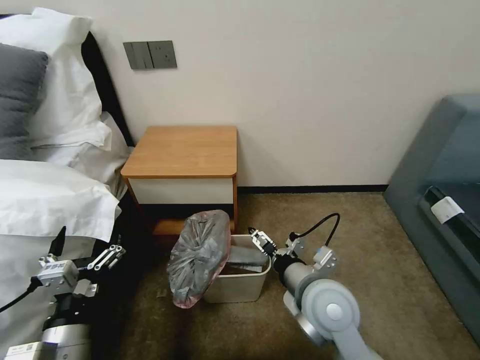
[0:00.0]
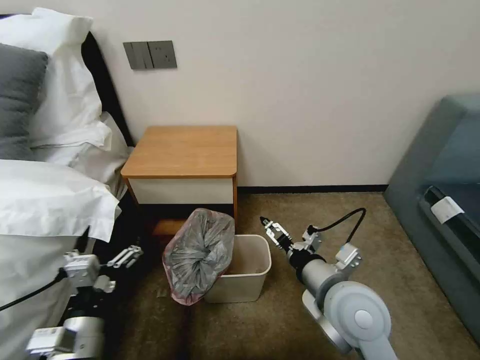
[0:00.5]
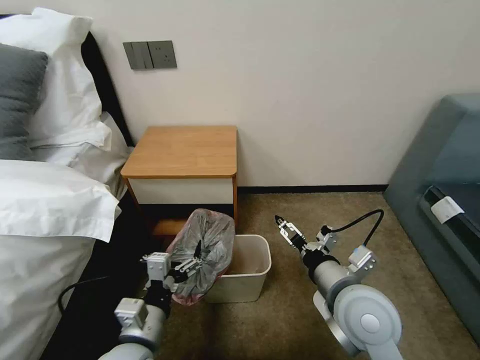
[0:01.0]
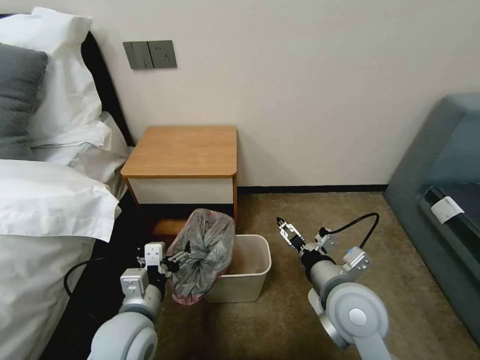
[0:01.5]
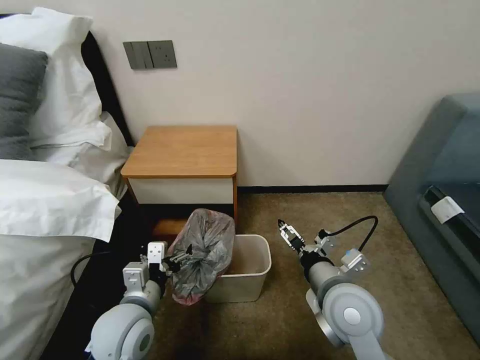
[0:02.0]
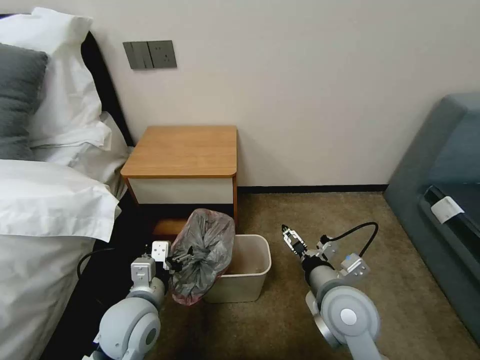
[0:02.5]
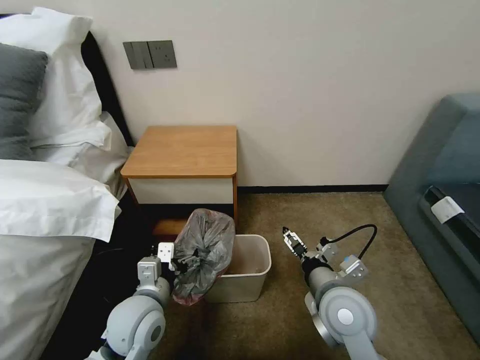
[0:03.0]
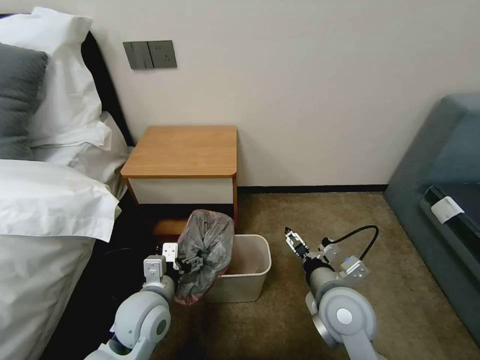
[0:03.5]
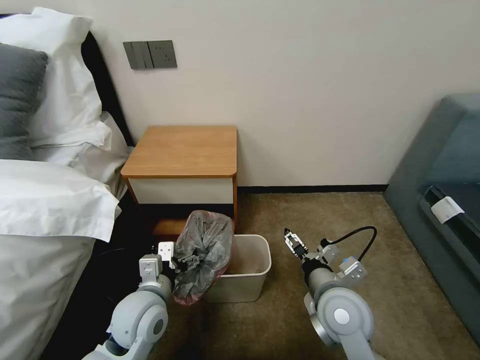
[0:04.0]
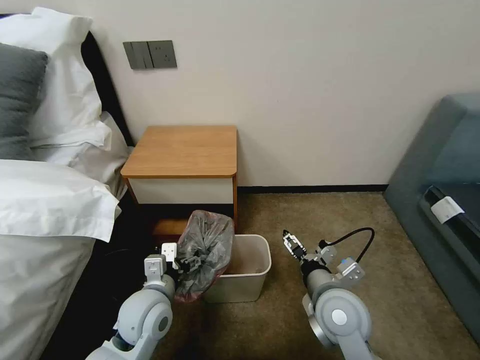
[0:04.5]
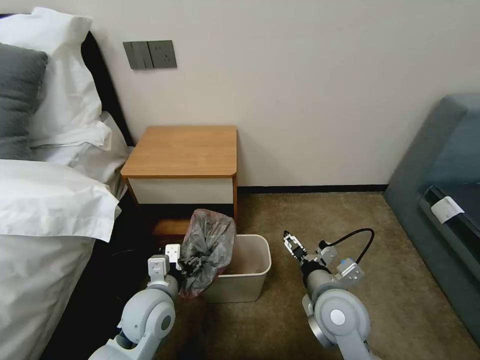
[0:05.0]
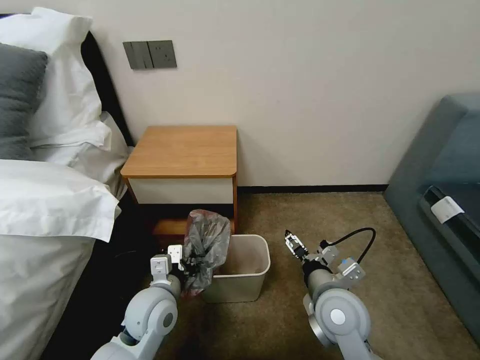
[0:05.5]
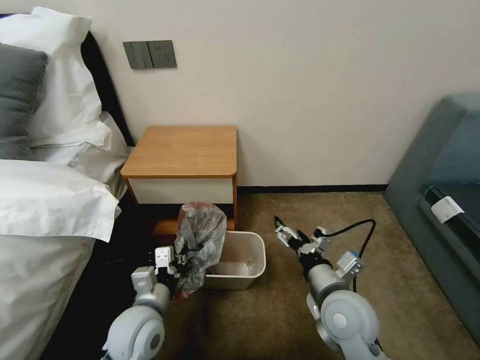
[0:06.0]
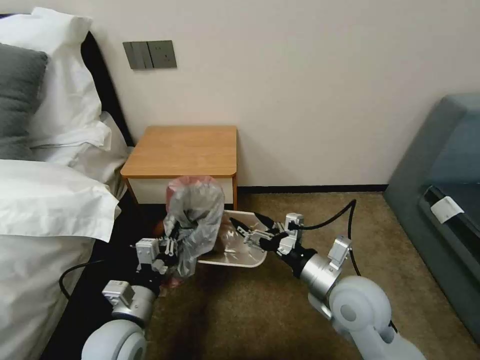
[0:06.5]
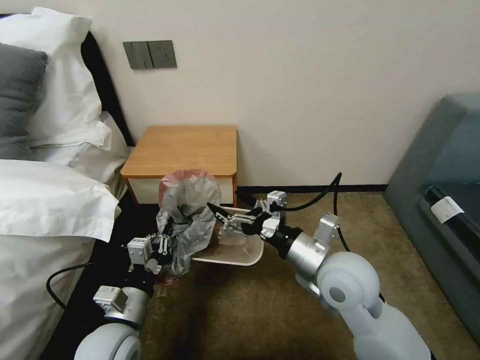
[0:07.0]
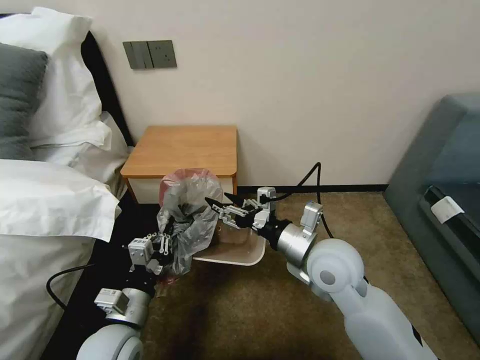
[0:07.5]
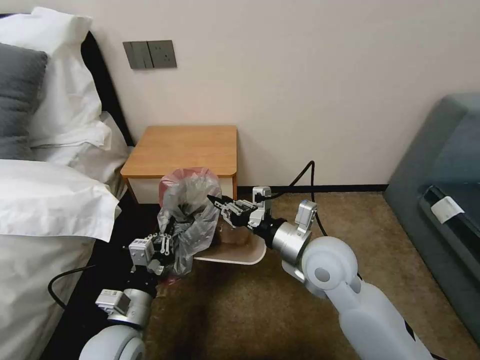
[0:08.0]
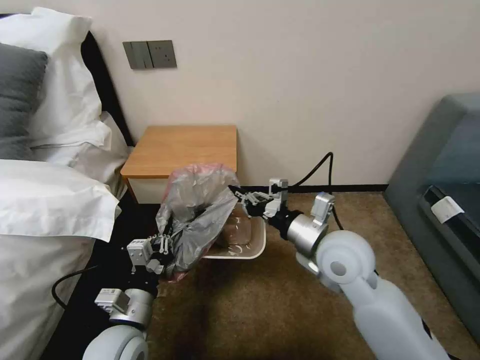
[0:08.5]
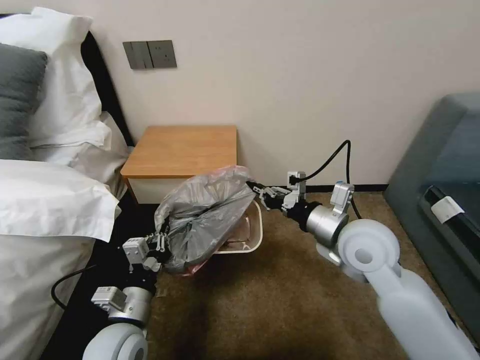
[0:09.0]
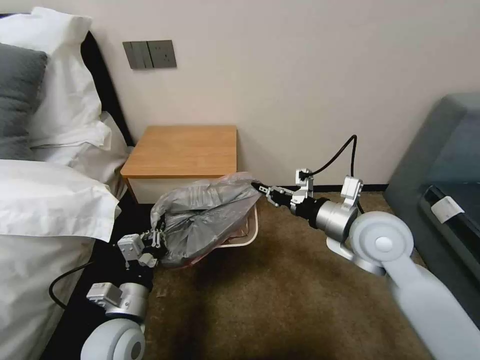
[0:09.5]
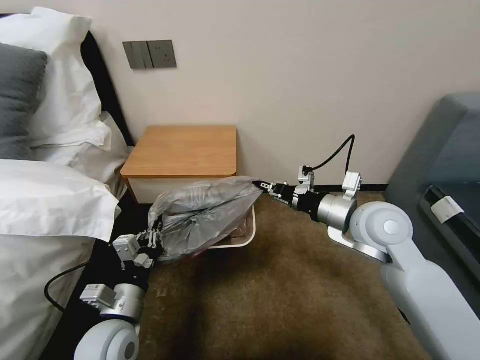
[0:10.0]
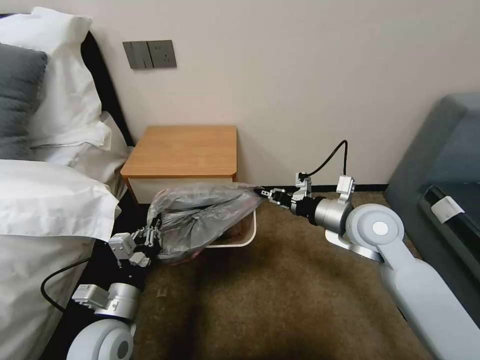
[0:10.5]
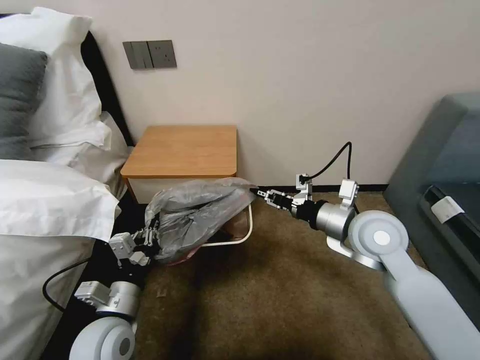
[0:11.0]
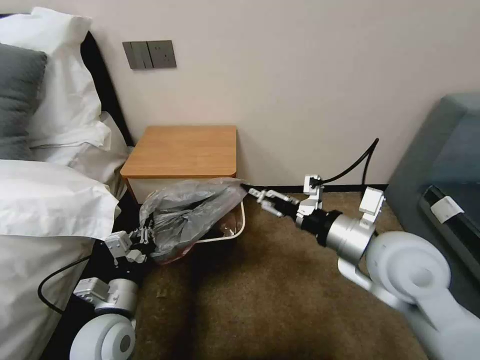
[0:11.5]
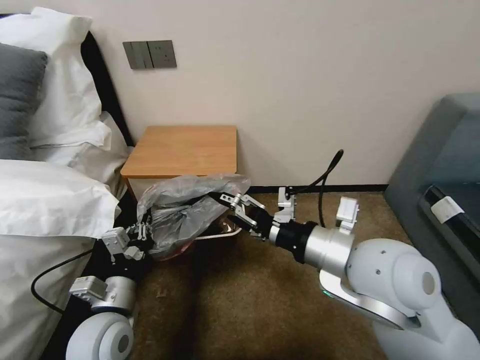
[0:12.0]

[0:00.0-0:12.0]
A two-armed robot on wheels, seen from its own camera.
Task of the whole recording: Pick up the garbage bag from the table and place it over the trash can.
0:00.0 to 0:02.0: The left gripper travels forward and to the right by roughly 10 cm.
0:02.0 to 0:04.0: The grippers stay close to where they were, moving slightly.
0:04.0 to 0:06.0: The left gripper closes.
0:06.0 to 0:08.0: The right gripper moves upward and forward, approximately 10 cm, and closes.
0:08.0 to 0:10.0: The right gripper shifts some 10 cm to the right.
0:10.0 to 0:12.0: The right gripper shifts roughly 10 cm backward and to the left, and opens its fingers.

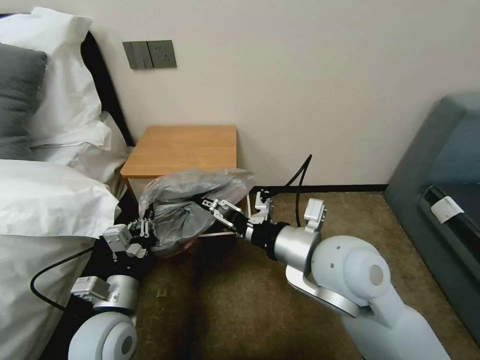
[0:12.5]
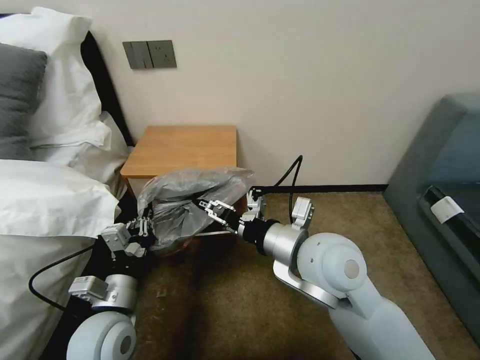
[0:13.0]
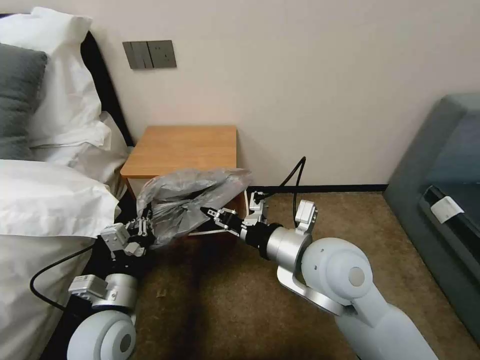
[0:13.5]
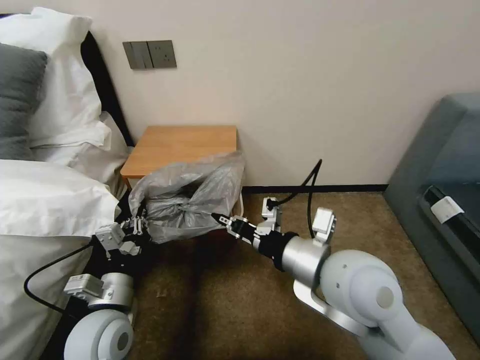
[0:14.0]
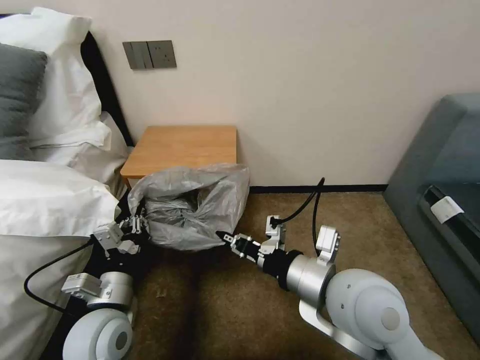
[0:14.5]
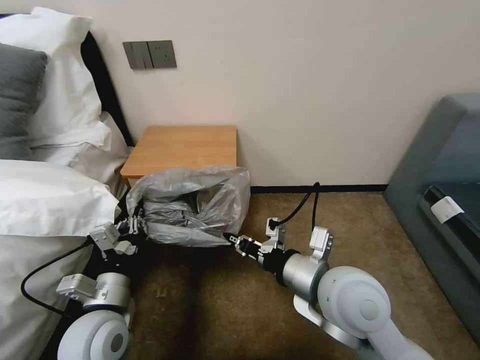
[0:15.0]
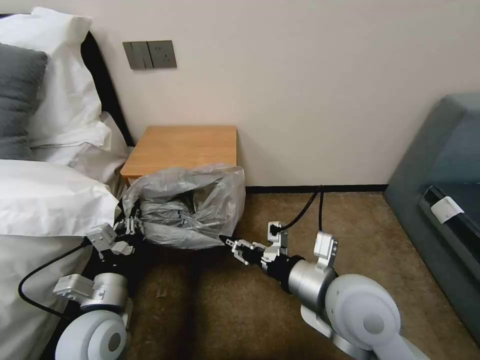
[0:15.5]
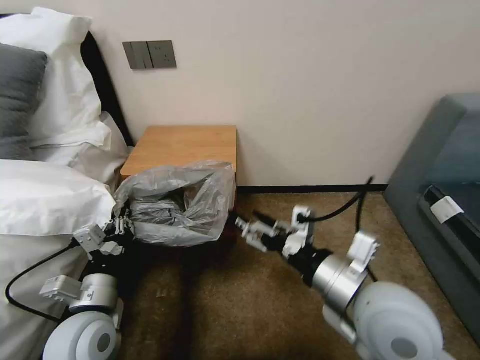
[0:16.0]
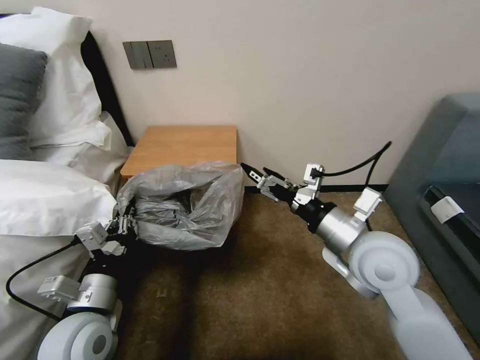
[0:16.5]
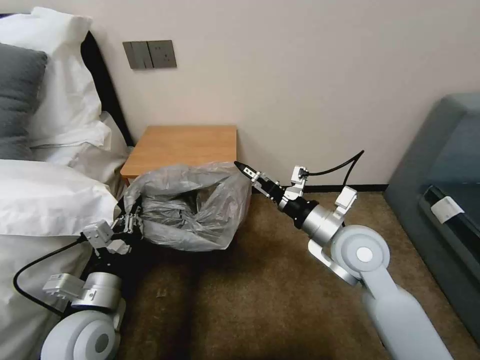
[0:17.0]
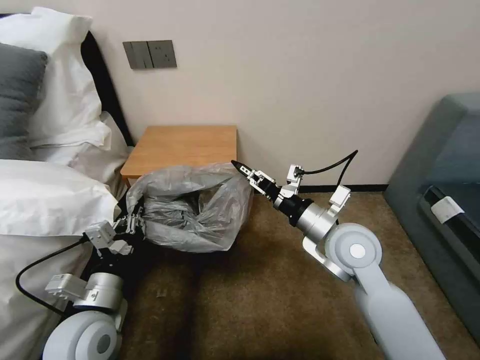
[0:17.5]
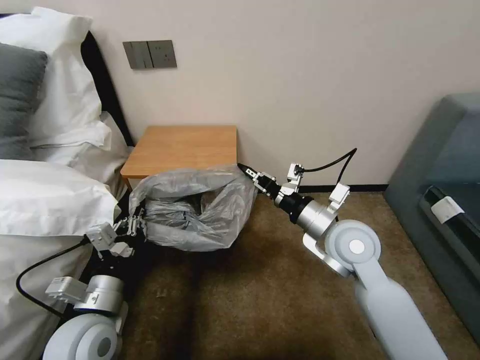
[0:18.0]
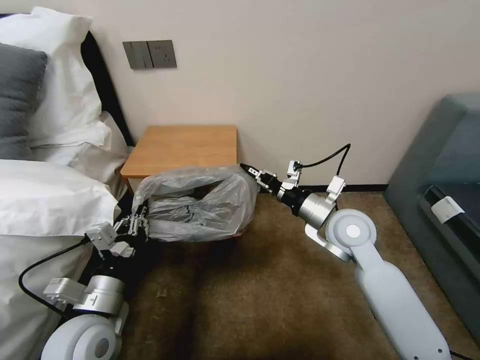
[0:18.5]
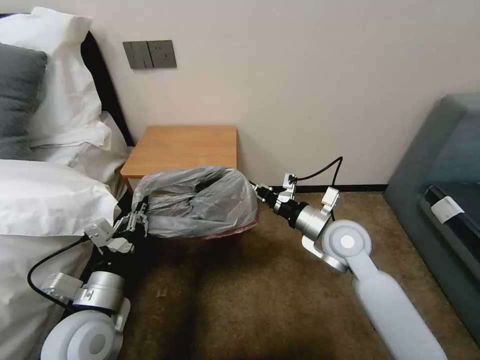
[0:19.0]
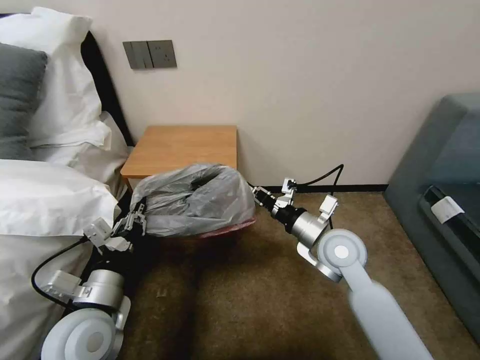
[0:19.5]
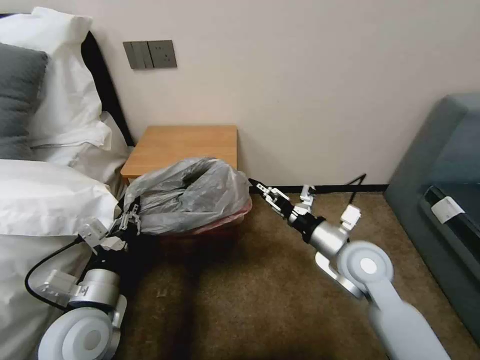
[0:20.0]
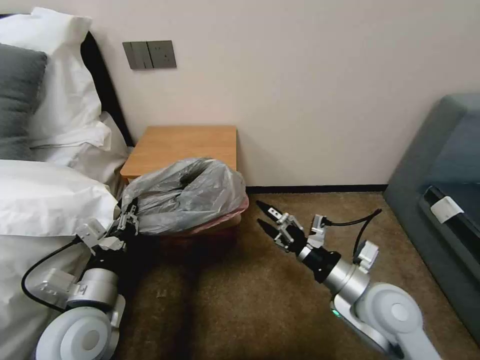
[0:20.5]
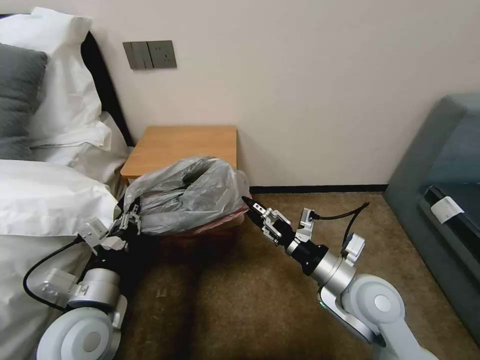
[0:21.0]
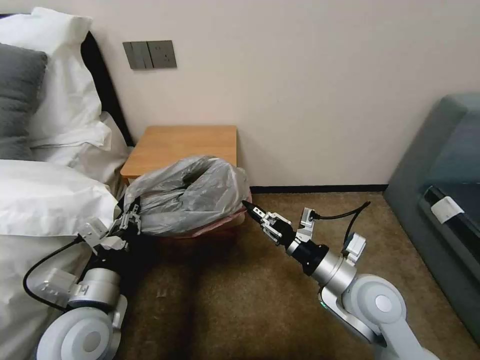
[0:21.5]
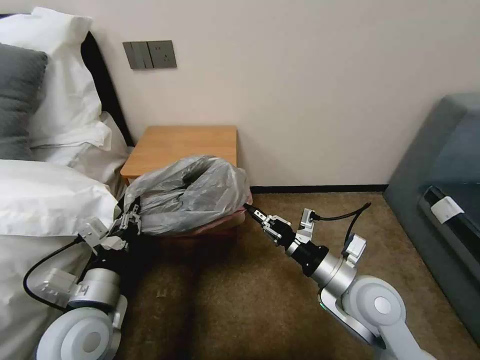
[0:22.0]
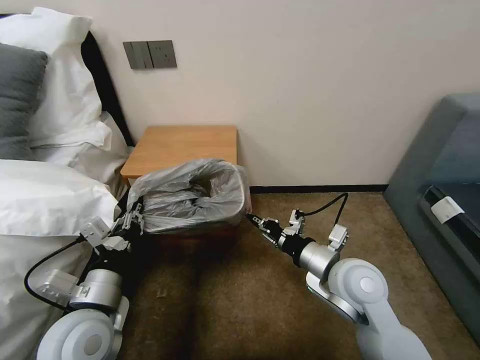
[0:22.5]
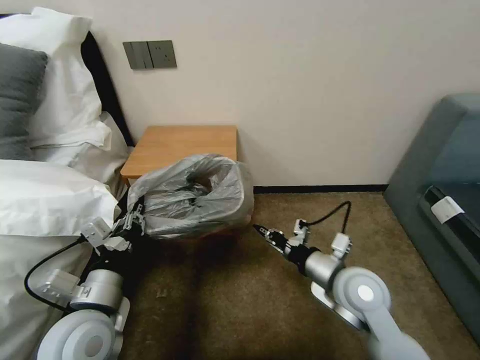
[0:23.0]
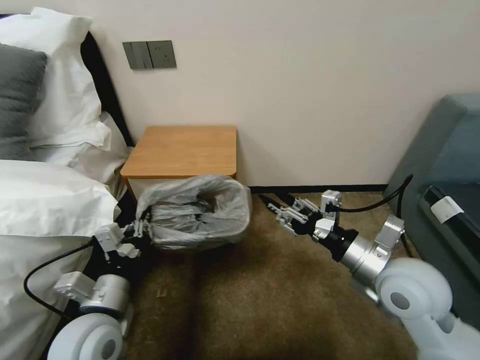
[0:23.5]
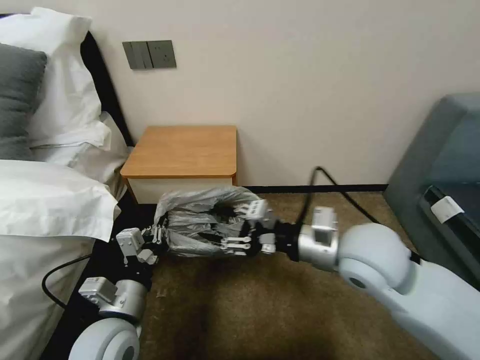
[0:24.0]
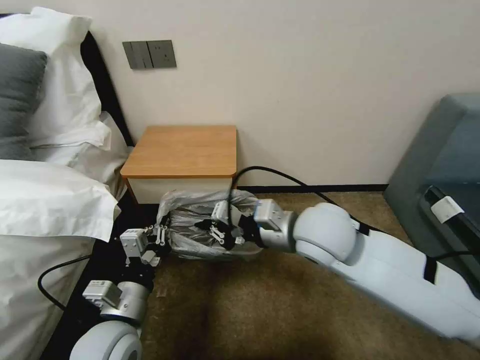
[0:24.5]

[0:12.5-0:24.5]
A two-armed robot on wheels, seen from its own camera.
Task of the whole recording: Pick up the garbage bag from the table and place it over the trash can.
0:12.5 to 0:14.5: The right gripper ends up about 5 cm from where it was, and closes its fingers.
0:14.5 to 0:16.5: The right gripper goes about 10 cm forward and to the right, and opens its fingers.
0:16.5 to 0:18.5: The right gripper is displaced forward by approximately 10 cm, and closes.
0:18.5 to 0:20.5: The right gripper shifts roughly 15 cm backward, and opens up.
0:20.5 to 0:22.5: The right gripper moves approximately 5 cm, and closes up.
0:22.5 to 0:24.5: The right gripper shifts some 15 cm upward and to the left, and opens and closes again.

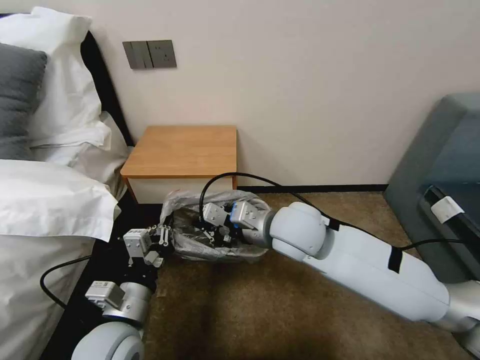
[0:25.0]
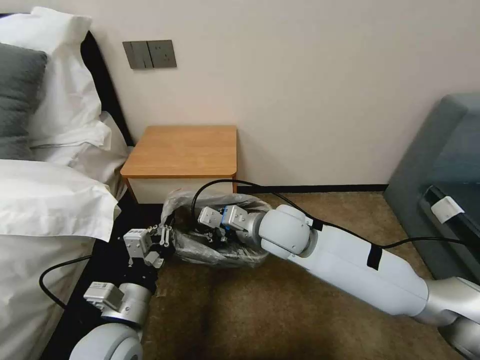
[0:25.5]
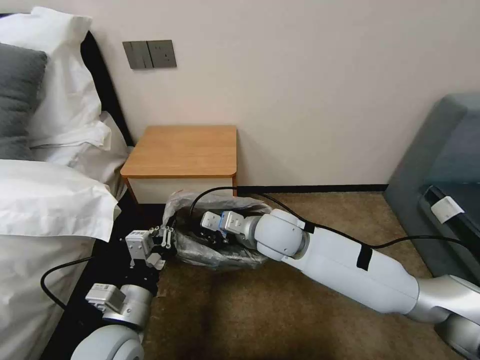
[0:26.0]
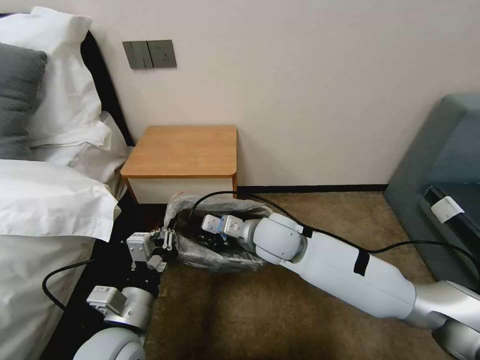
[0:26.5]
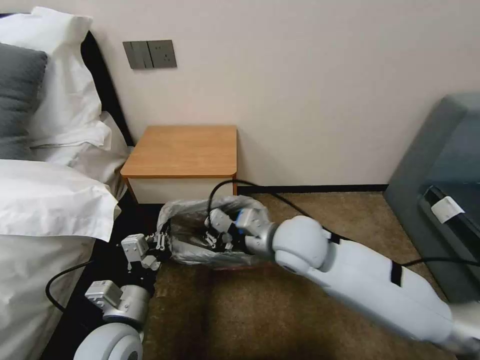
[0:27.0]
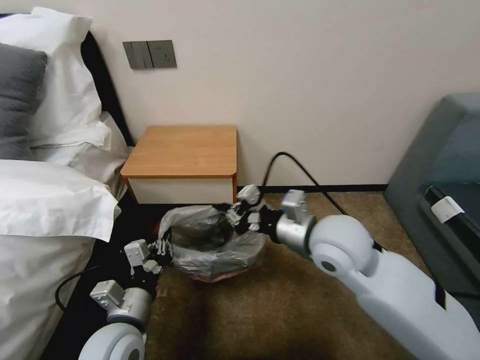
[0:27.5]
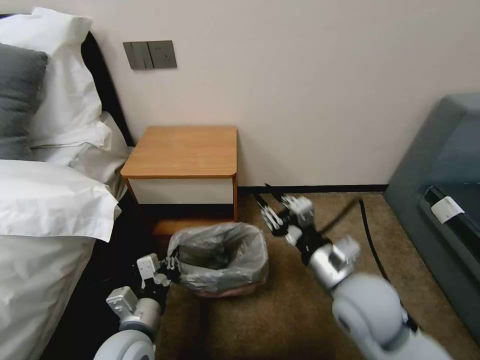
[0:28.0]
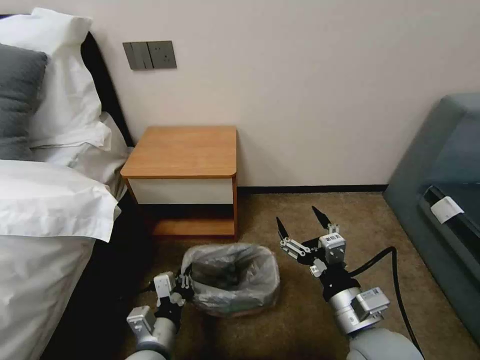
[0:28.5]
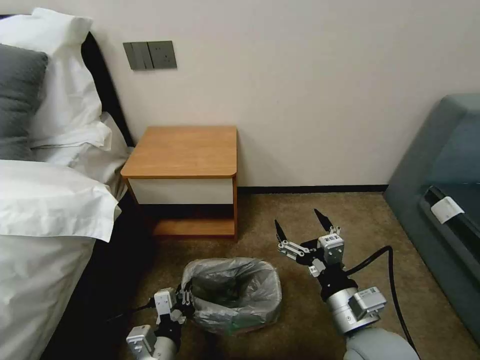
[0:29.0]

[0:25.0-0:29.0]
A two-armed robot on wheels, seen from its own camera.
Task of the whole recording: Pick up the garbage bag from the table and place it over the trash can.
0:27.0 to 0:29.0: The right gripper heads backward, to the right and downward, covering roughly 20 cm, and opens. Meanwhile the left gripper goes some 10 cm downward and backward.
